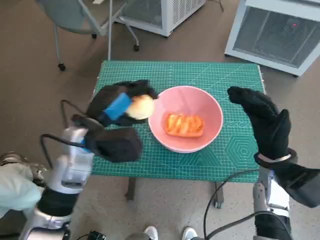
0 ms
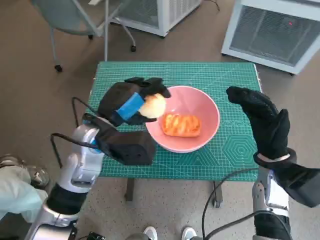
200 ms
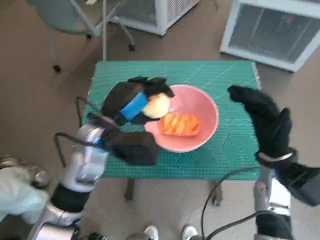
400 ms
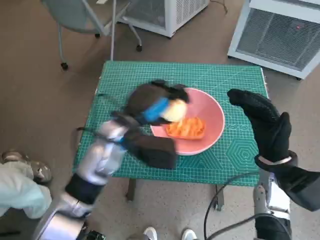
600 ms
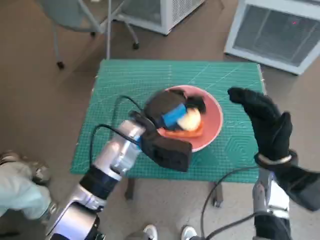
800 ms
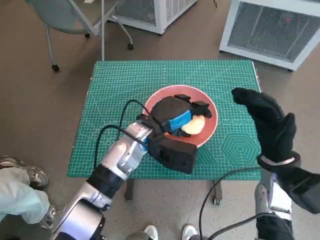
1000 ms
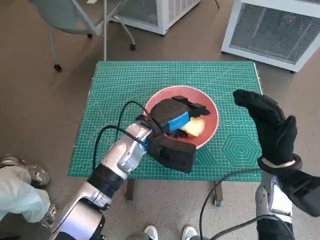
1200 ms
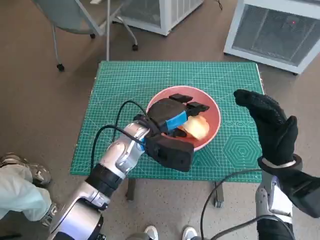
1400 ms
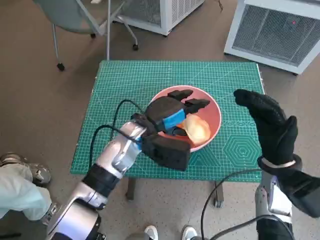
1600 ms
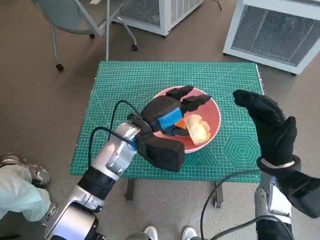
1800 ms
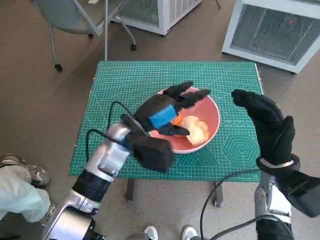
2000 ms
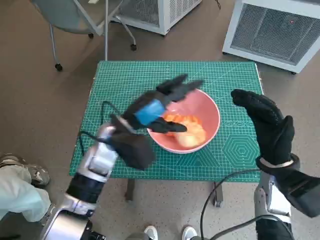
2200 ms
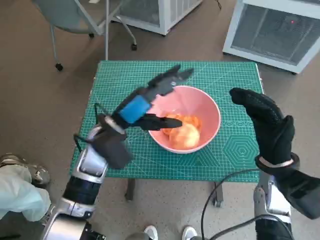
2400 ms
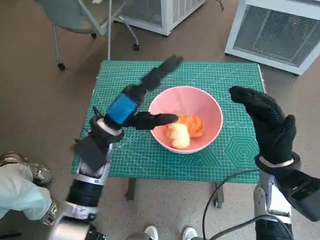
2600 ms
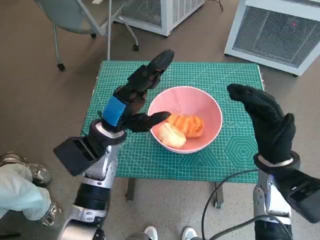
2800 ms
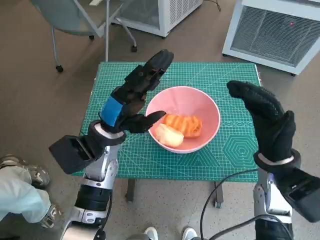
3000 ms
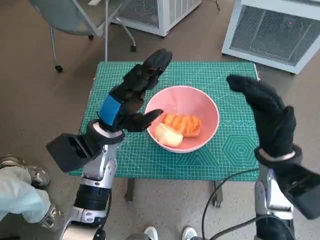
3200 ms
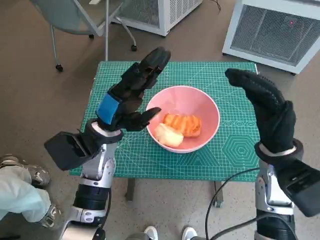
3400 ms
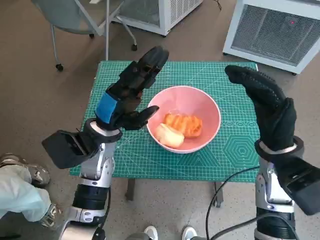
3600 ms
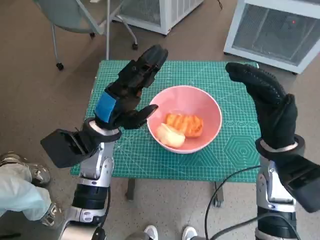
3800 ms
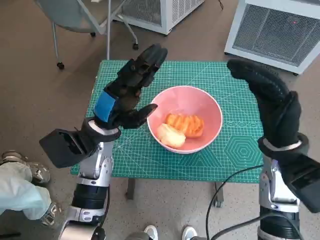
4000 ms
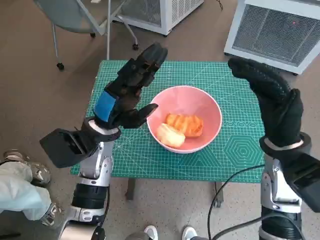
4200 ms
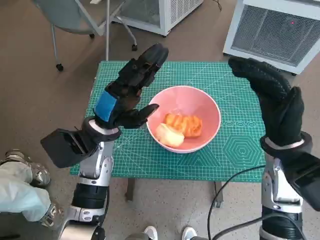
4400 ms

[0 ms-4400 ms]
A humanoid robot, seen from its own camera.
Task of the whole recording: Push the bowl into the center of the table and put the bread into the bowl.
Step, 0 ms to 1800 ms: Place the round bread in pink bowl with left hand.
0 ms to 1400 ms: The left hand goes some 10 cm to the right.
1400 ms to 3000 ms: The left hand shifts approximately 5 cm to the left.

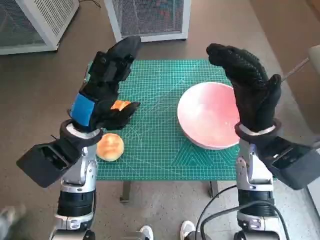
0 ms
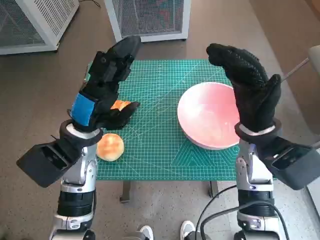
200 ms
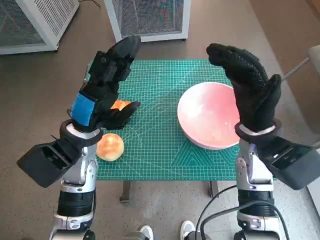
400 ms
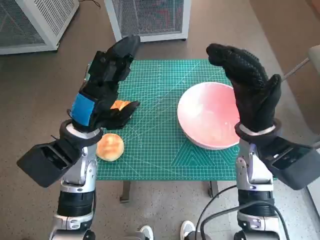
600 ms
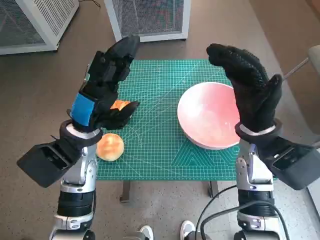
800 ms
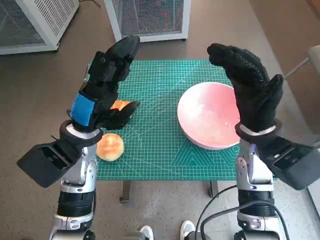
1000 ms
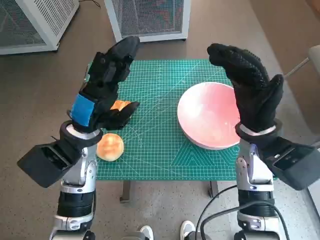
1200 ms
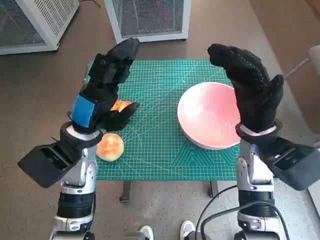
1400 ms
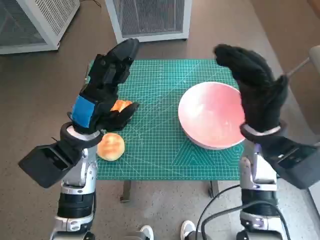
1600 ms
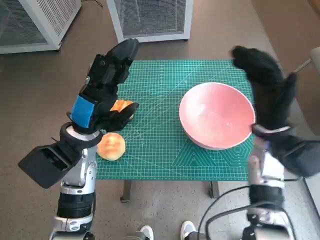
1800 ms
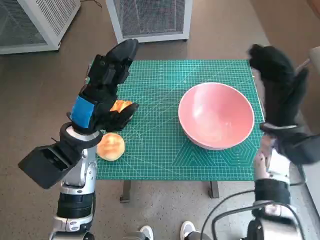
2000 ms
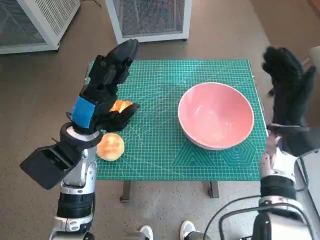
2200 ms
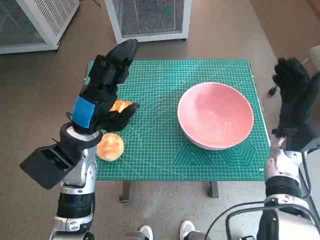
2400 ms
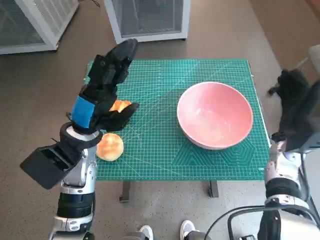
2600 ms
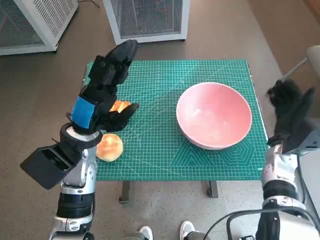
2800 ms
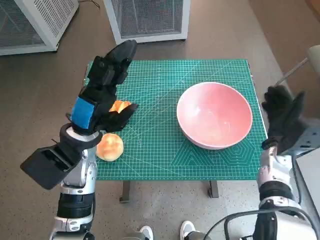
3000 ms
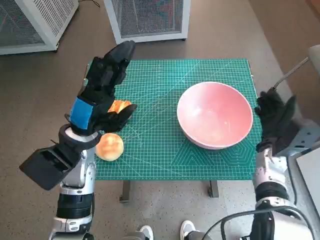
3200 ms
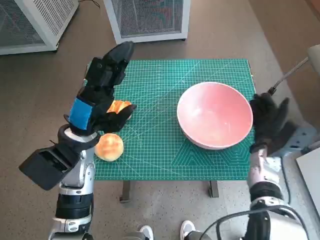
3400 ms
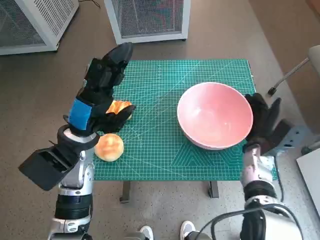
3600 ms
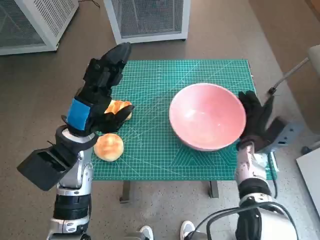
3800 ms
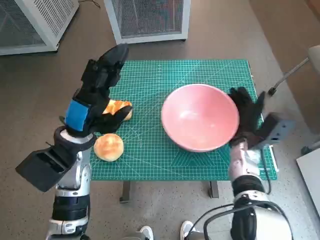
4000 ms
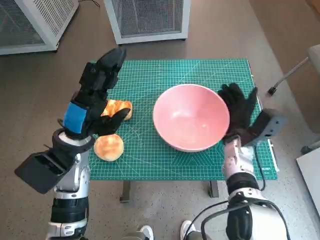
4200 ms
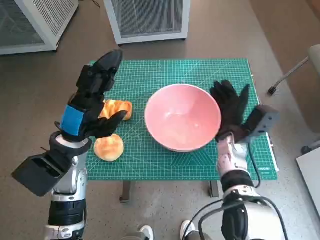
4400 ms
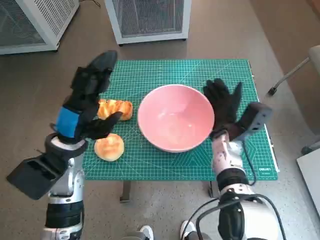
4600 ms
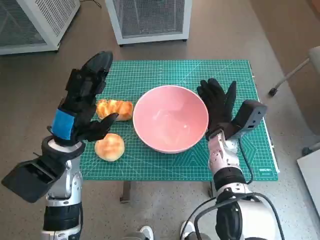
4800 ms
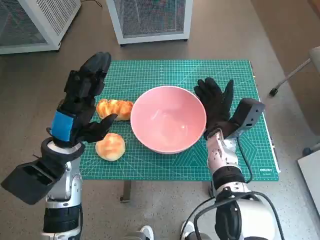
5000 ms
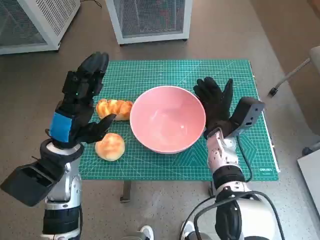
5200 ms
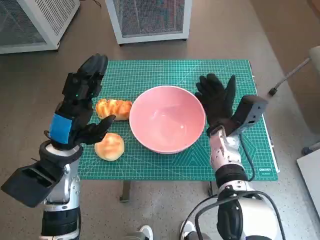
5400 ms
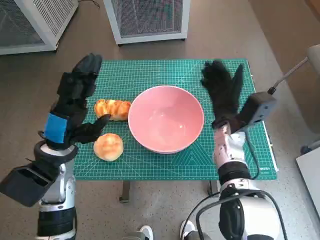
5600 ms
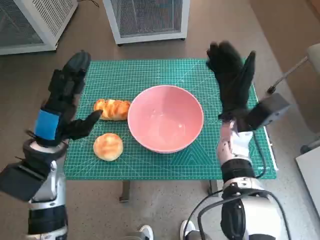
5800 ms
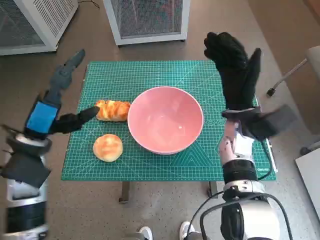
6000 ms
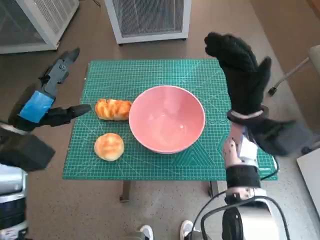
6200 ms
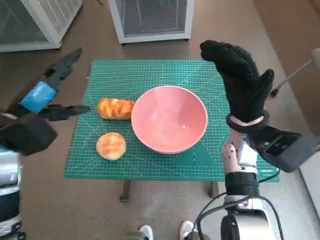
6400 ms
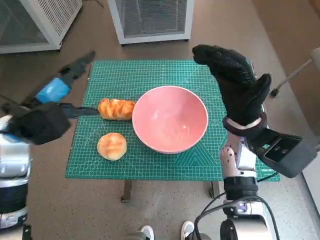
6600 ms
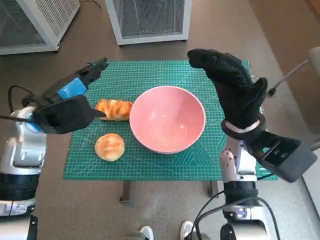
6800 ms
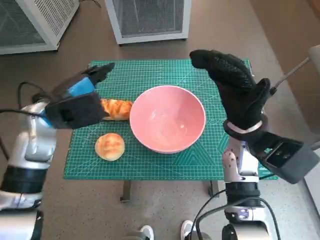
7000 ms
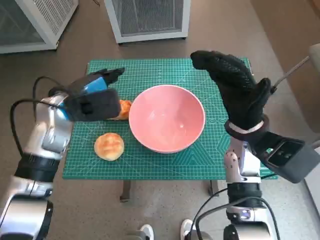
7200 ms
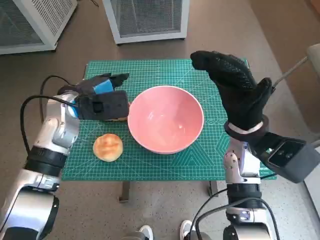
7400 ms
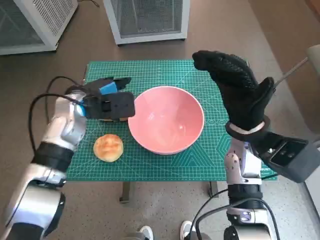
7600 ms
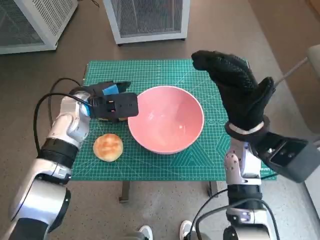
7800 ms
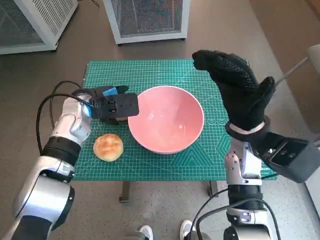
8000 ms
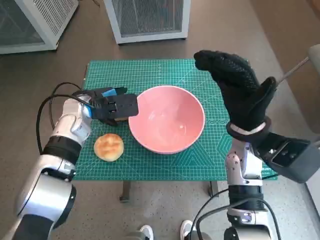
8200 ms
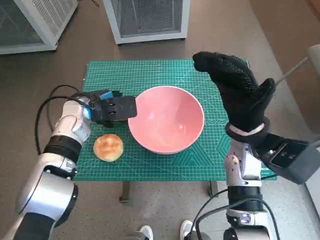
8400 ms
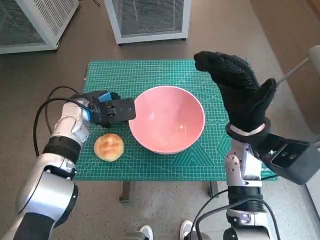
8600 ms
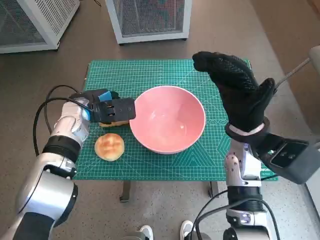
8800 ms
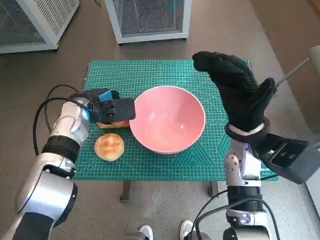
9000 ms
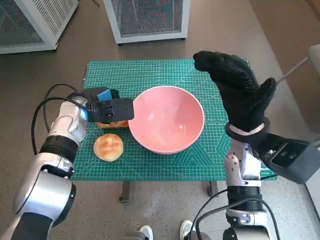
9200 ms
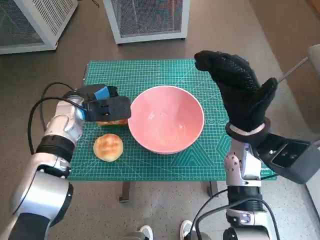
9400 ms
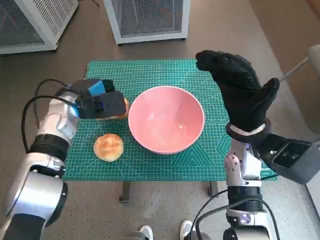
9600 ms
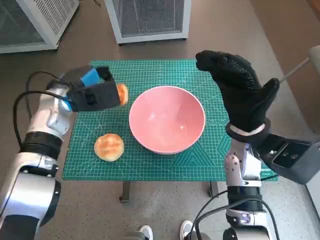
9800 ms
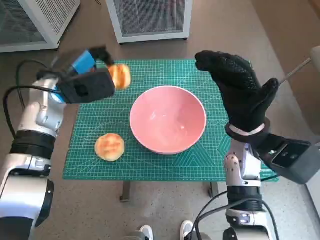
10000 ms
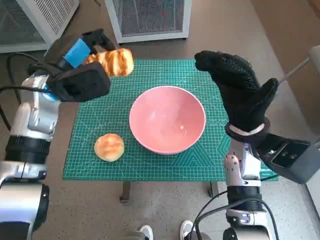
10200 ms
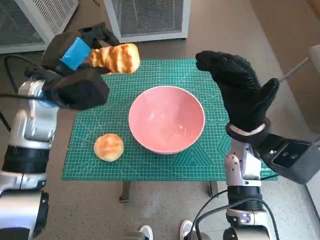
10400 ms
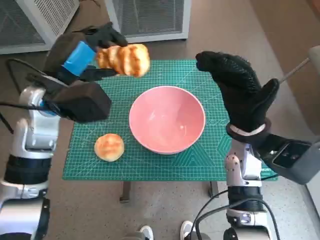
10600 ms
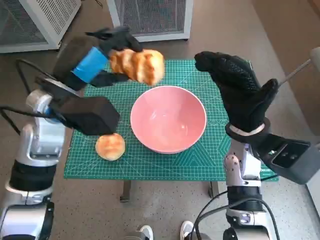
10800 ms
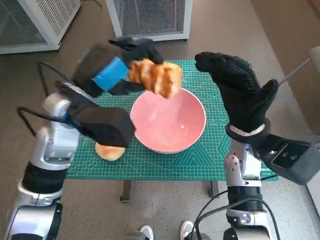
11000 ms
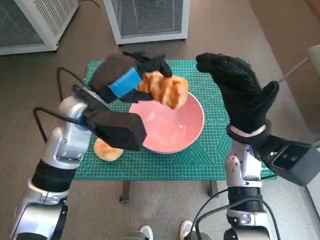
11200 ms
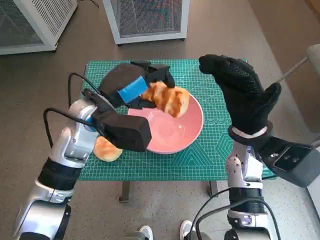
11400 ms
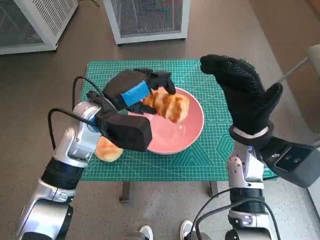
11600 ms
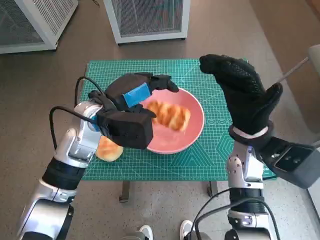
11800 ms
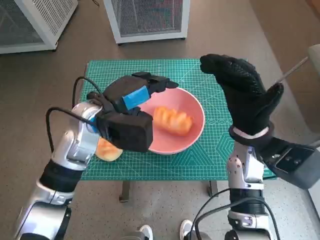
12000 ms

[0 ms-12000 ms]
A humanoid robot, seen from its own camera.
Task of the whole recording: Push the bowl into the center of the table and put the bread into the bowl.
Step, 0 ms to 5400 ms: Move the pink bowl to the center of table with right hand.
Step, 5600 ms to 8800 ms: Grasp the long bread with left hand.
Step, 9000 ms to 11800 ms: Place the long bread in pink bowl with left hand.
1600 ms to 3000 ms: The right hand shifts roughly 10 cm downward and to the right.
3000 ms to 4400 ms: The right hand heads to the left, covering about 10 cm.
4400 ms to 6000 ms: The left hand shifts some 5 cm to the left; the right hand is displaced upward by some 10 cm.
6000 ms to 7600 ms: The left hand heads forward and to the right, covering about 10 cm.
7600 ms to 9000 ms: The hands make only small movements.
9000 ms to 10400 ms: The left hand moves upward, some 10 cm.
10400 ms to 12000 ms: The left hand is displaced to the right by approximately 5 cm.

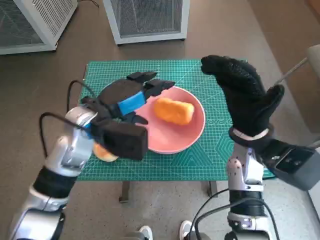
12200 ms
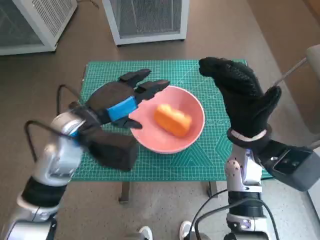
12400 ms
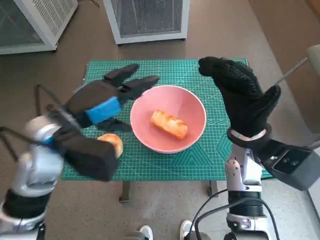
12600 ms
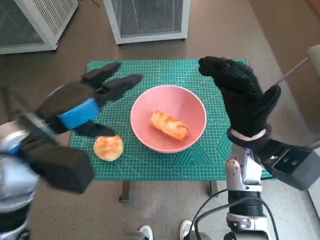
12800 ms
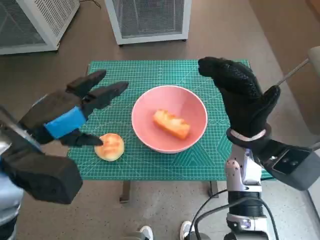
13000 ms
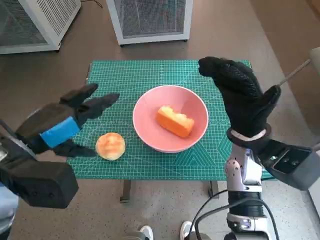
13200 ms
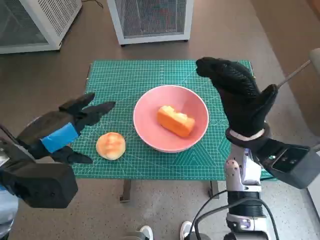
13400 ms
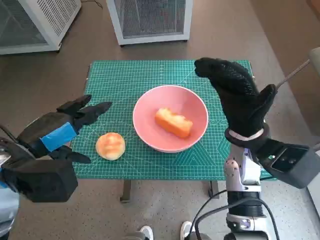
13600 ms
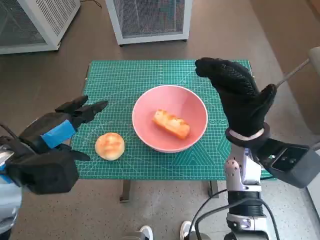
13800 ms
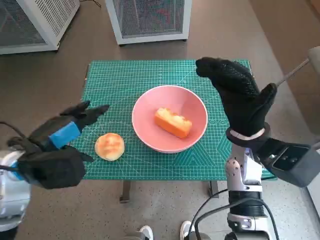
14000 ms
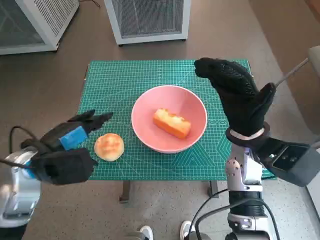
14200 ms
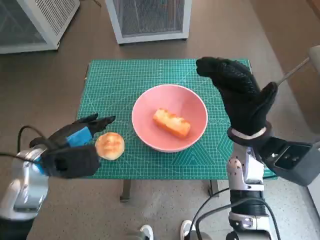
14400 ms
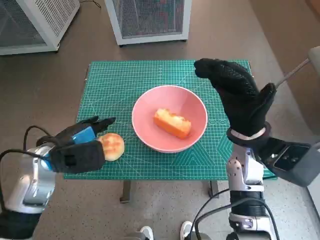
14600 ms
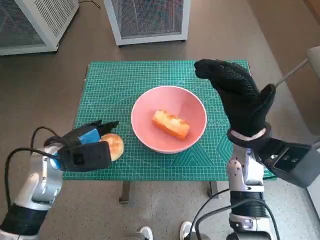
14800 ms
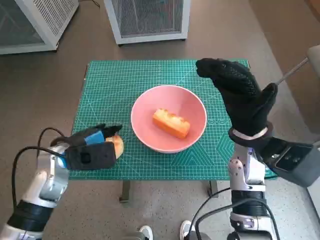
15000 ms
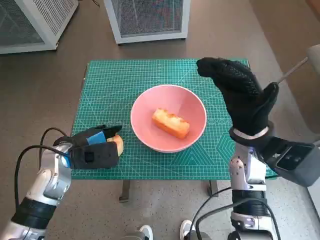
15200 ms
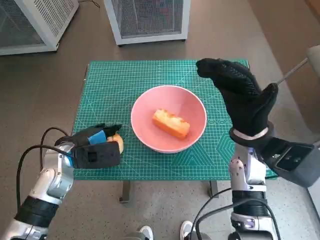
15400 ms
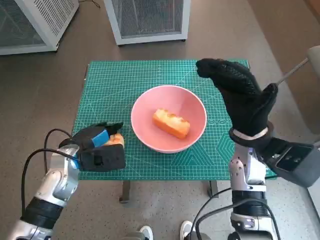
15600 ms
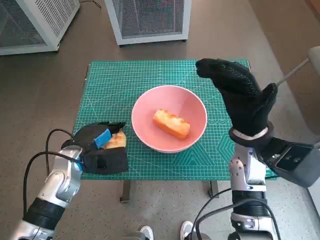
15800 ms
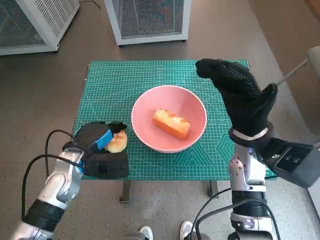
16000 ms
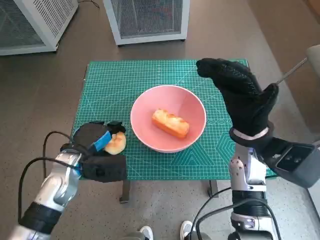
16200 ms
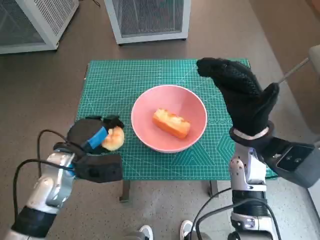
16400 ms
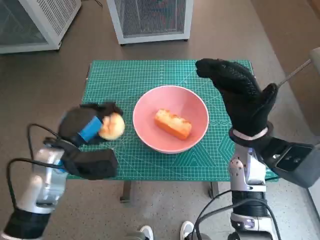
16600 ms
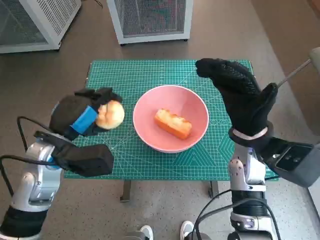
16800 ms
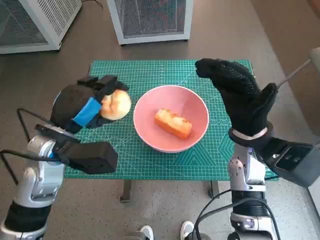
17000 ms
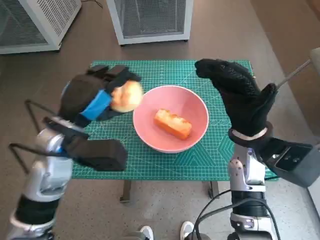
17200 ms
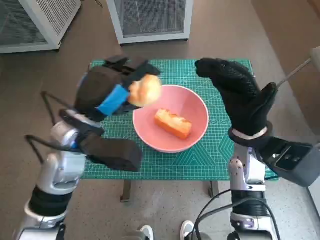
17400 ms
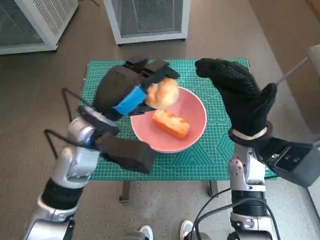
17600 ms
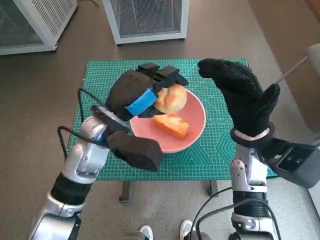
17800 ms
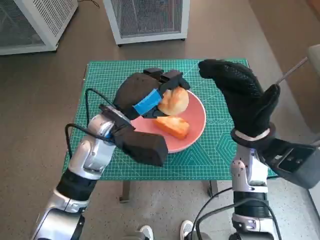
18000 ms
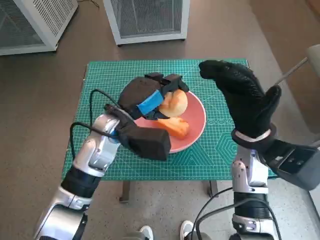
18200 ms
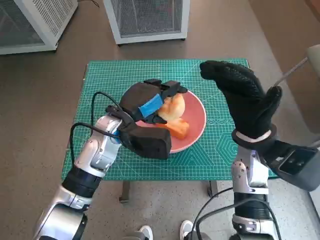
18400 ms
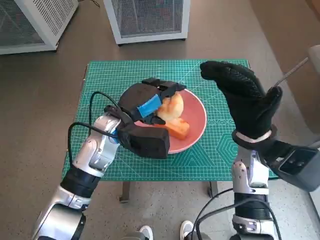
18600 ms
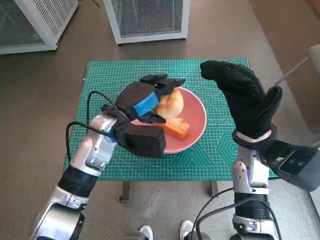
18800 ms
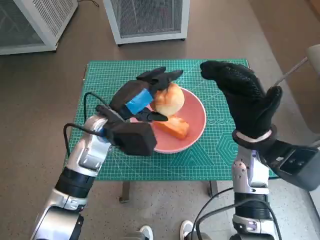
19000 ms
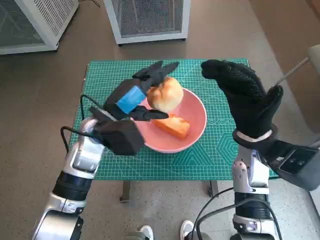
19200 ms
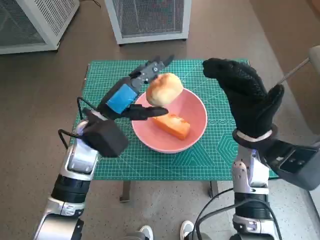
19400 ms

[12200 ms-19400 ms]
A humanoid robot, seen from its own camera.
Task of the whole recording: Push the bowl into the center of the table and put the bread into the bowl.
Step, 12200 ms to 16000 ms: Grasp the round bread with left hand.
12200 ms to 13600 ms: The left hand heads to the left and backward, covering approximately 15 cm.
13600 ms to 15000 ms: The left hand shifts approximately 10 cm downward and forward.
16600 ms to 18000 ms: The left hand heads to the right, covering roughly 10 cm.
